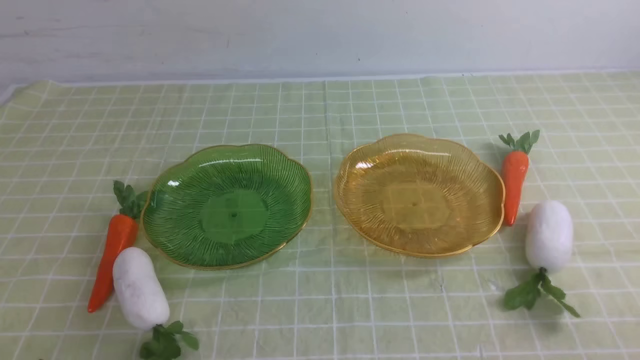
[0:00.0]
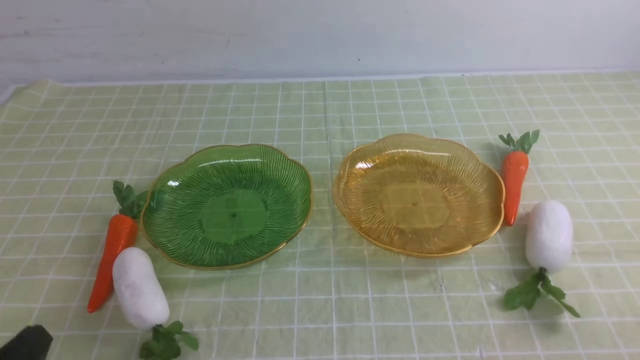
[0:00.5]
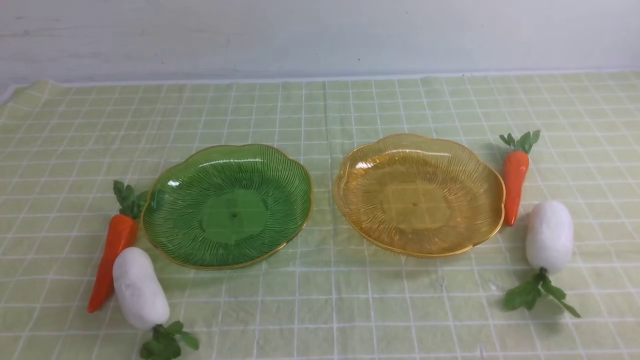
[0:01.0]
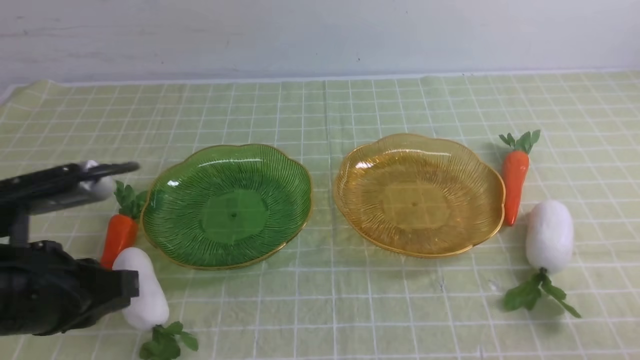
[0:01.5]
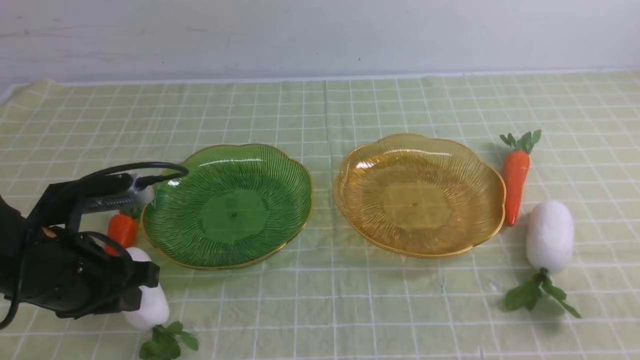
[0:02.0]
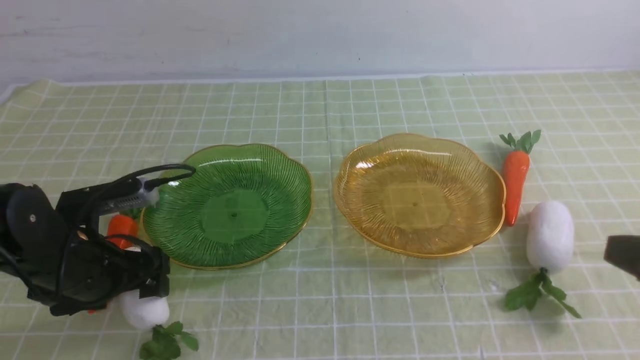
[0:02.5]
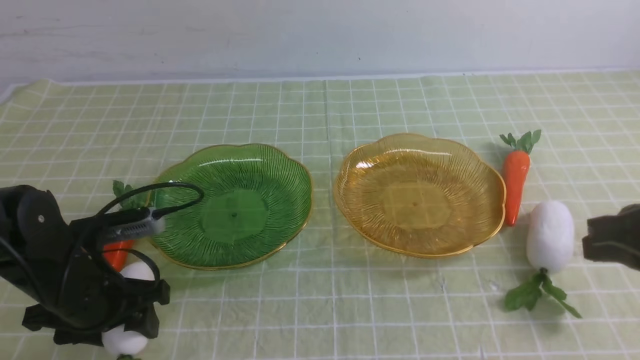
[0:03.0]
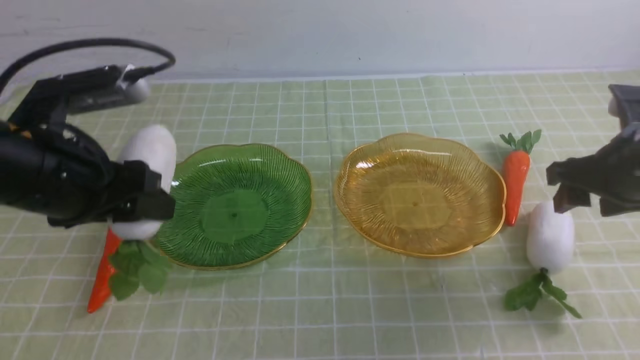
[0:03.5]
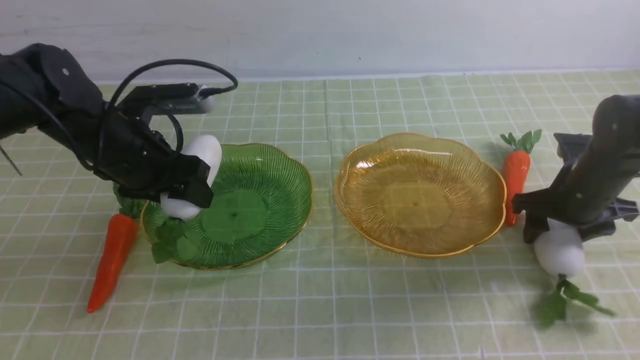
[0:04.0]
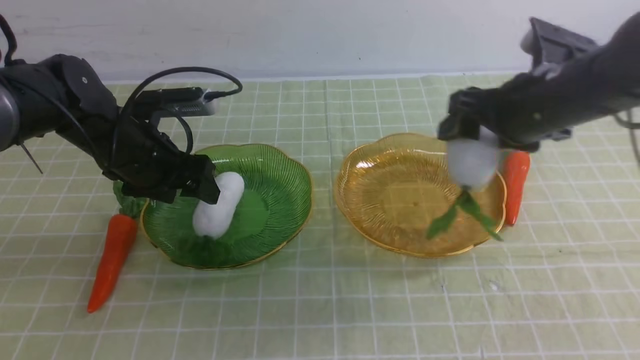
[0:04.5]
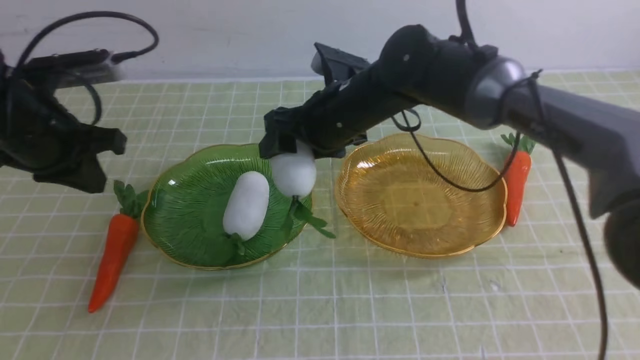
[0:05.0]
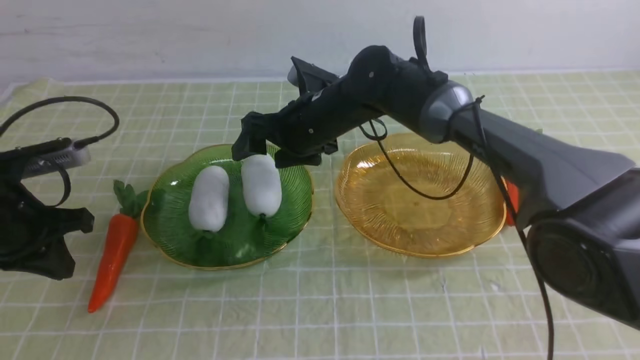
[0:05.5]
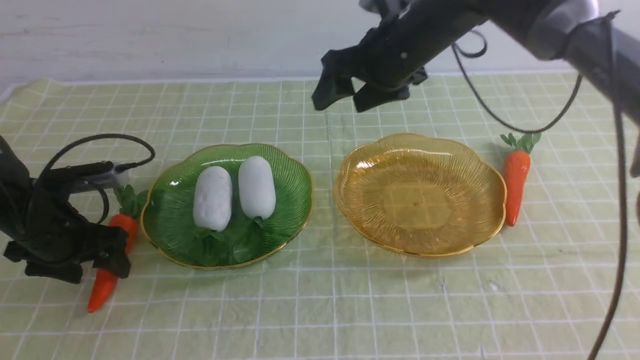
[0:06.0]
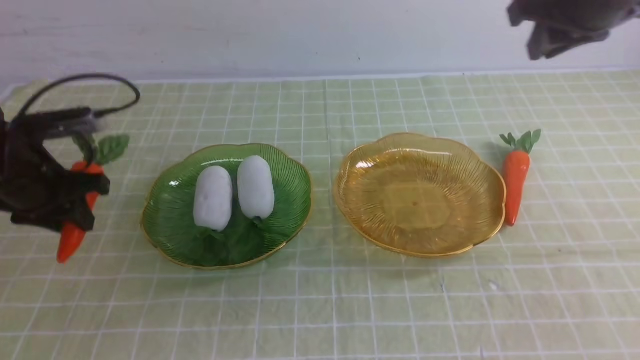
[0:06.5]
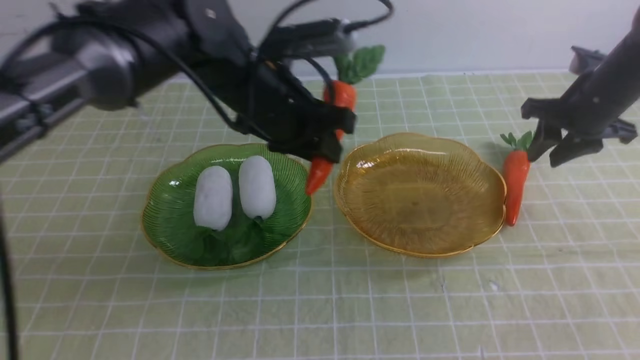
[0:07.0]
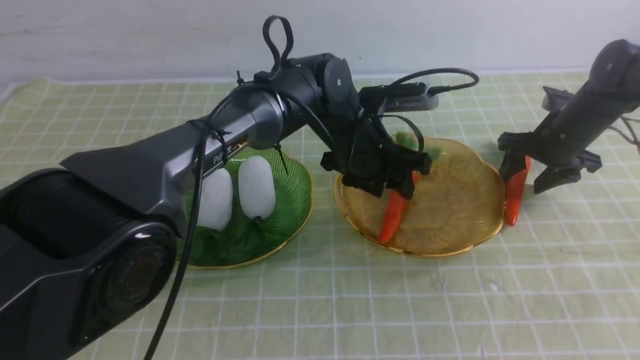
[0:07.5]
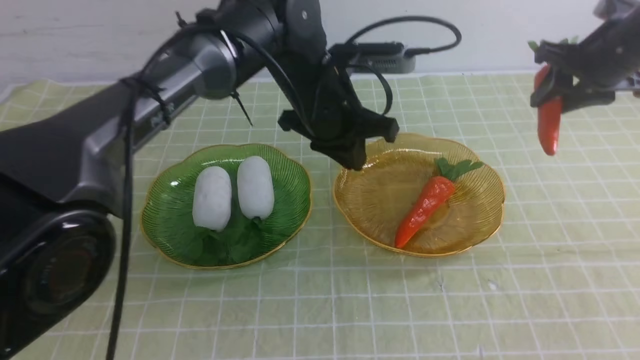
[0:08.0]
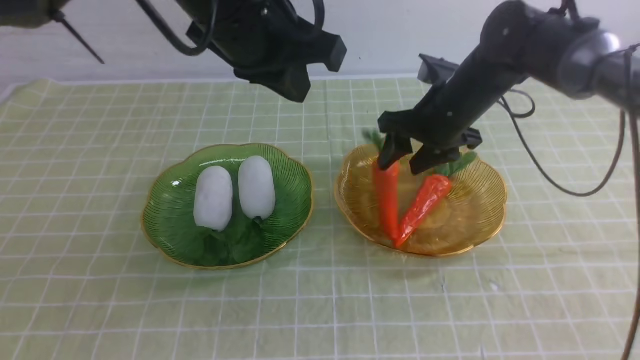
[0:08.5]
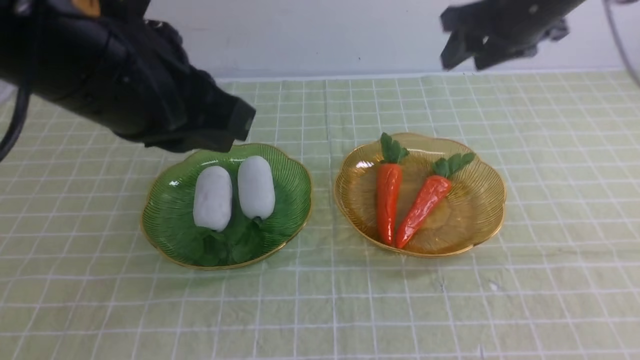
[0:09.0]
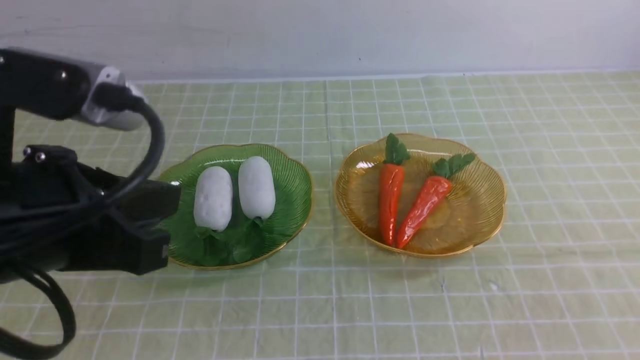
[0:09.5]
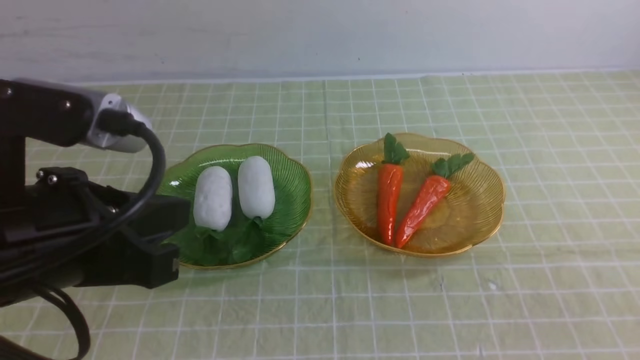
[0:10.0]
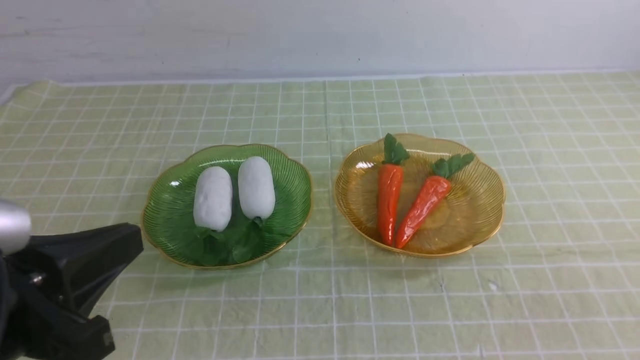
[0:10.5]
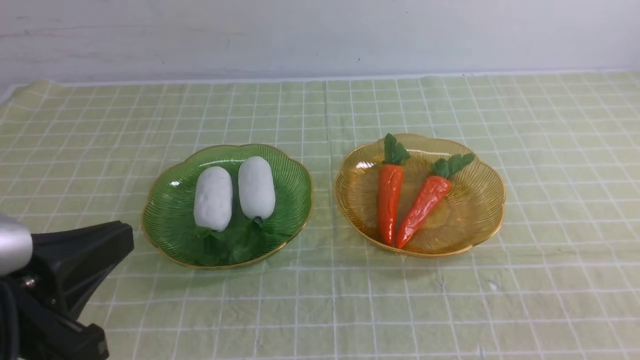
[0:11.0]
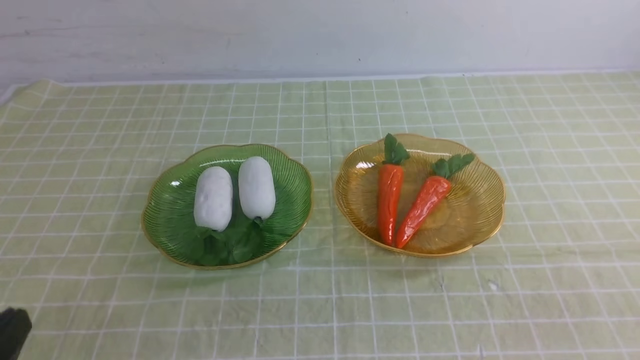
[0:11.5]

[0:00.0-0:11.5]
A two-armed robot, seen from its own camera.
Step, 0:00.0 to 0:04.5: use the left arm to grab a radish and put it into the left plate.
Step, 0:05.0 to 0:05.5: use the right arm to grab a radish and put it into the left plate.
Step, 0:06.0 to 0:07.5: use the left arm to grab a carrot and put it into the right plate.
Step, 0:08.0 to 0:09.5: use the right arm to grab a carrot and put it into the right plate.
0:00.0 to 0:02.0: The left gripper shifts some 20 cm forward, and opens.
0:02.0 to 0:04.0: The left gripper travels forward by approximately 15 cm, while the right gripper heads forward, covering roughly 30 cm, and opens its fingers.
0:04.0 to 0:06.0: The left gripper is displaced to the left and downward by some 15 cm, and closes, then opens again. The right gripper moves to the left and upward, roughly 25 cm.
0:06.0 to 0:07.5: The right gripper moves to the right and downward, some 25 cm, and closes, then reopens, while the left gripper travels to the right by roughly 35 cm.
0:07.5 to 0:09.5: The right gripper moves backward and upward, about 50 cm, and closes up. The left gripper shifts roughly 35 cm backward, to the left and upward, and closes up.
0:09.5 to 0:11.5: The left gripper travels downward, backward and to the left by some 20 cm.

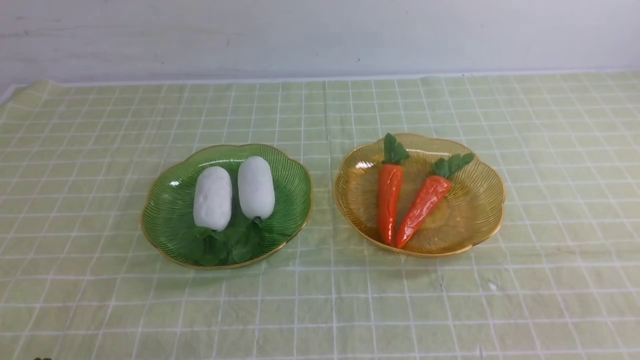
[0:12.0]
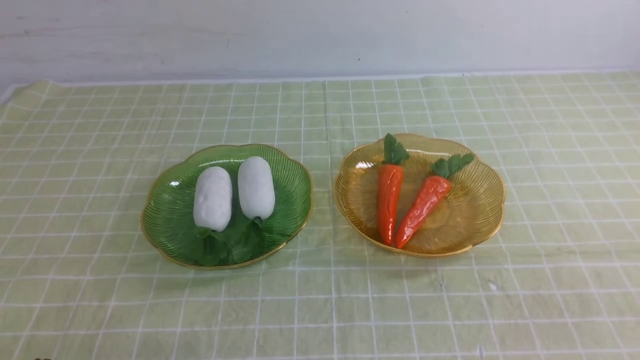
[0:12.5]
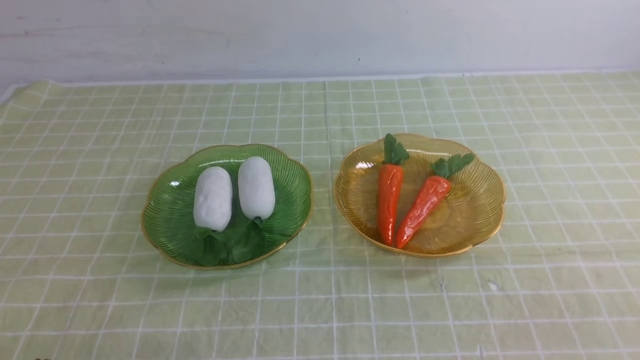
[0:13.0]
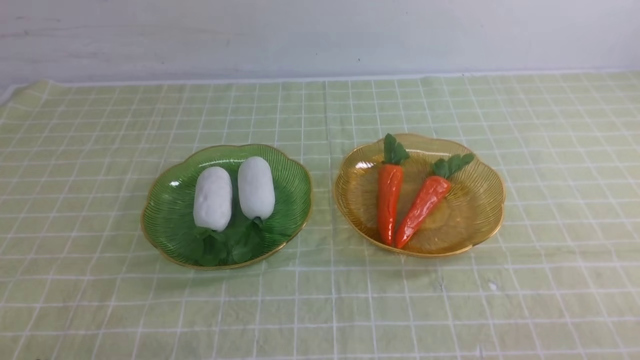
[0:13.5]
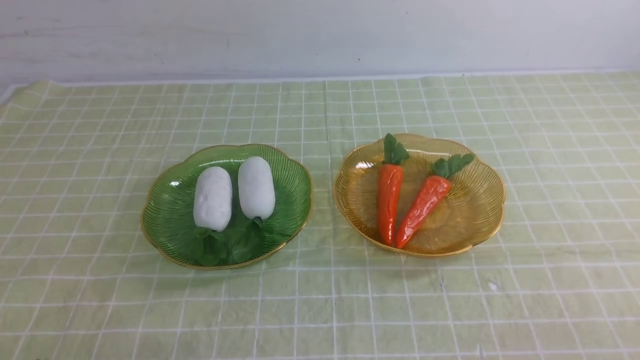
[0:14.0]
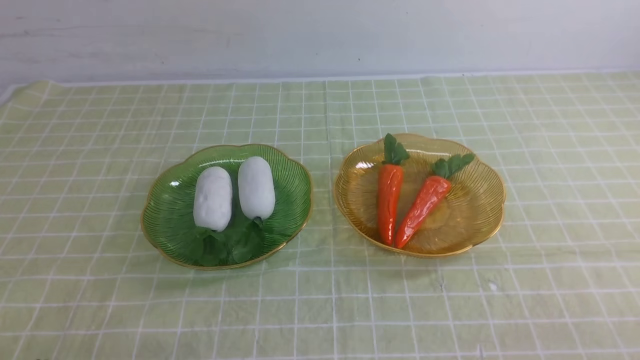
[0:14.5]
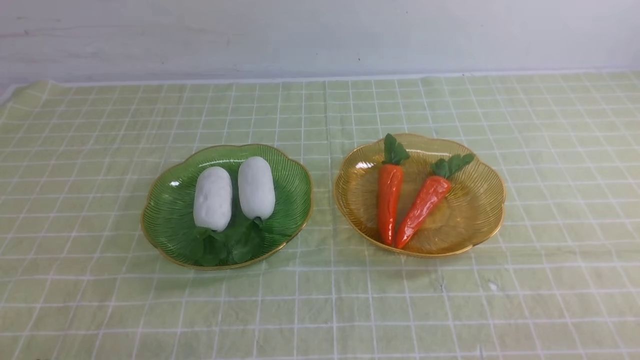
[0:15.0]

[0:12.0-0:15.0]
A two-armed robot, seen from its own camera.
0:13.5 to 0:15.0: Both grippers stay put.

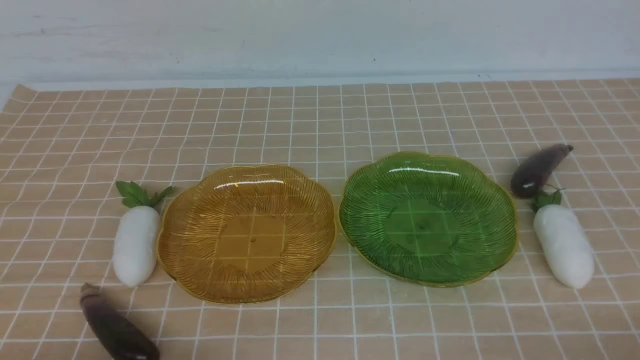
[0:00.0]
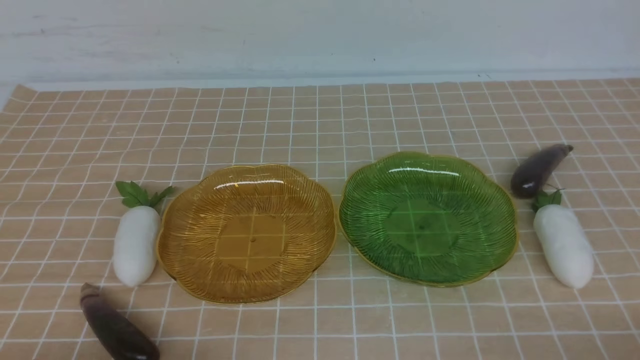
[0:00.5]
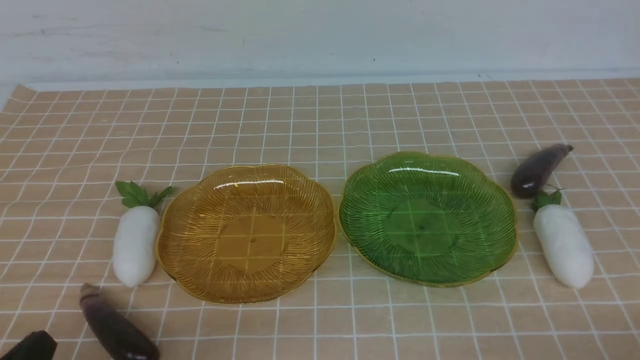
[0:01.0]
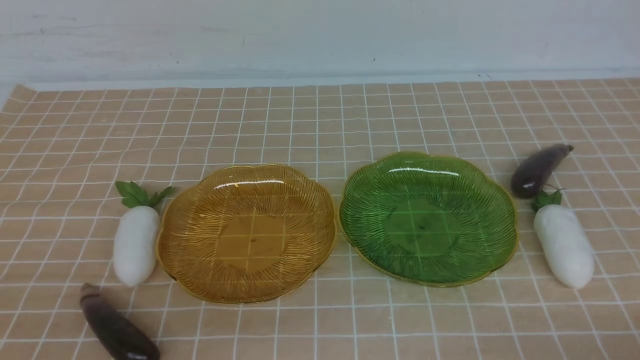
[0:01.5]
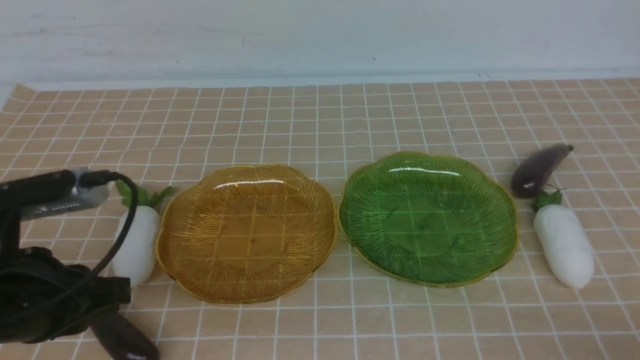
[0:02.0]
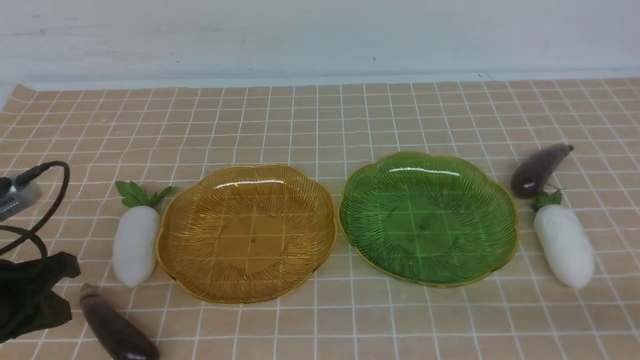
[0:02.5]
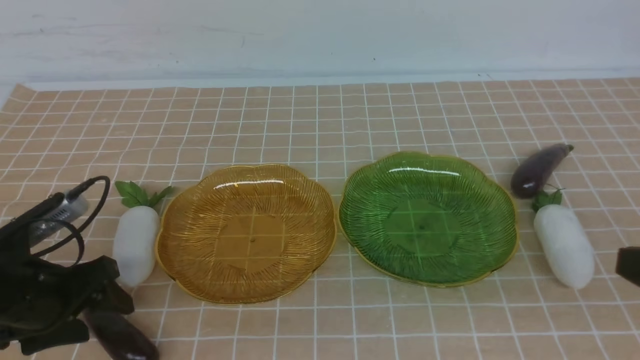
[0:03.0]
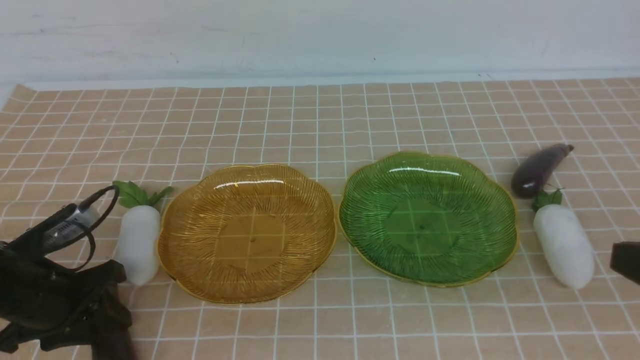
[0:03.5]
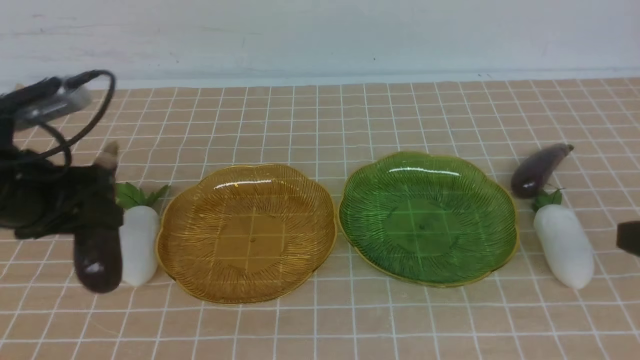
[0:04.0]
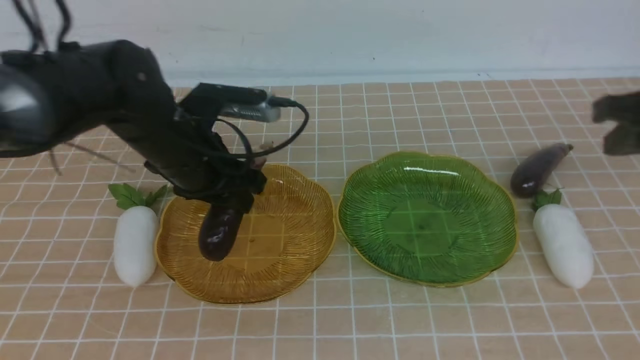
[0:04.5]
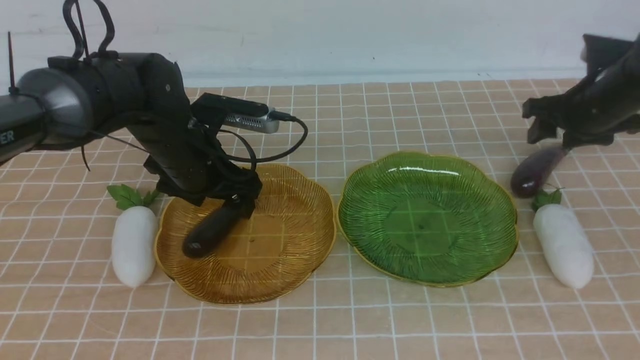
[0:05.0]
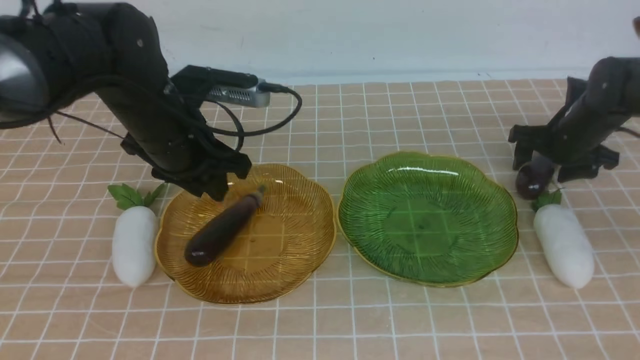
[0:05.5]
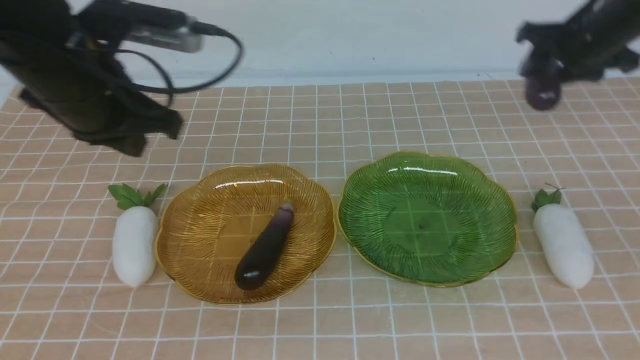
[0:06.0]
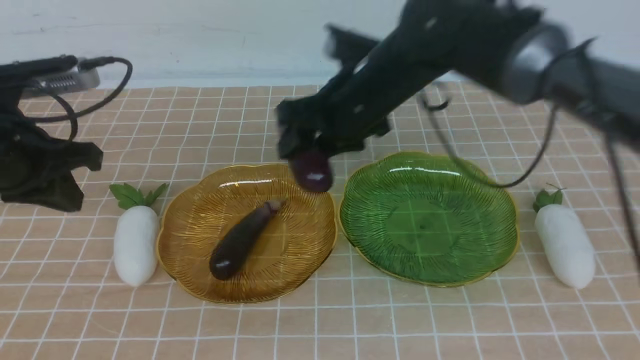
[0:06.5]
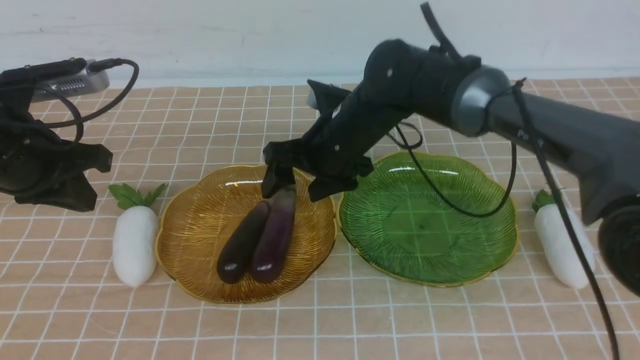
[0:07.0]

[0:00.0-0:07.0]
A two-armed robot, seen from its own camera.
Step, 0:00.0 to 0:05.0: use the left arm to grab an eggplant and put it into the left plate.
0:00.0 to 0:02.0: The left gripper travels forward and upward by about 15 cm.
0:02.0 to 0:03.5: The left gripper is displaced forward by about 10 cm, travels downward and back again, some 10 cm each way, and opens up. Meanwhile the right gripper travels upward and forward by roughly 15 cm.
0:03.5 to 0:05.0: The right gripper is displaced forward by some 35 cm, and opens; the left gripper travels to the right, forward and upward by about 10 cm, and opens, then closes again.
0:05.0 to 0:07.0: The right gripper shifts about 30 cm upward, backward and to the left. Meanwhile the left gripper shifts roughly 20 cm downward and to the left, and opens its fingers.
